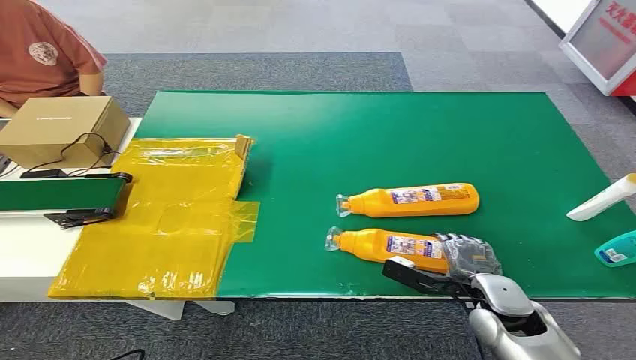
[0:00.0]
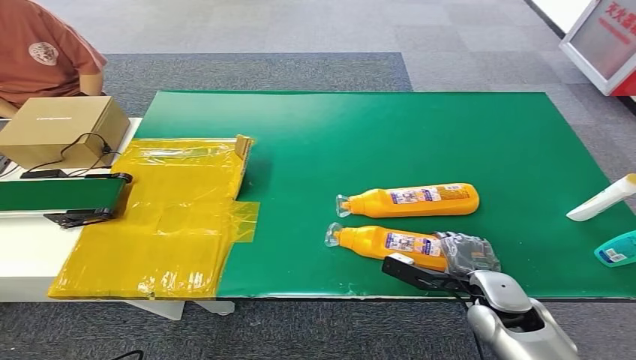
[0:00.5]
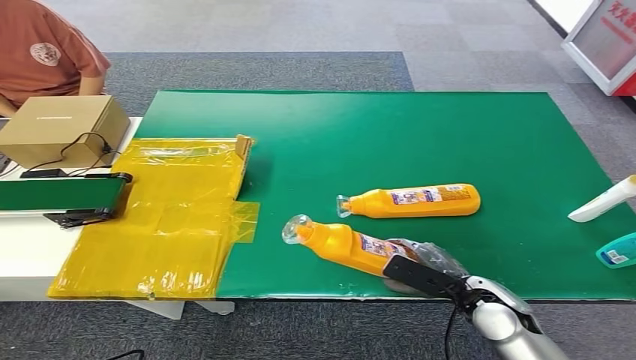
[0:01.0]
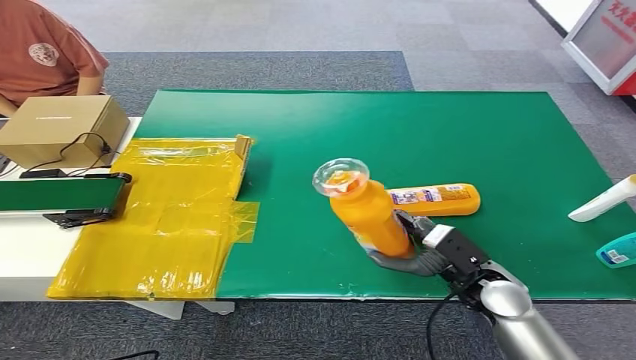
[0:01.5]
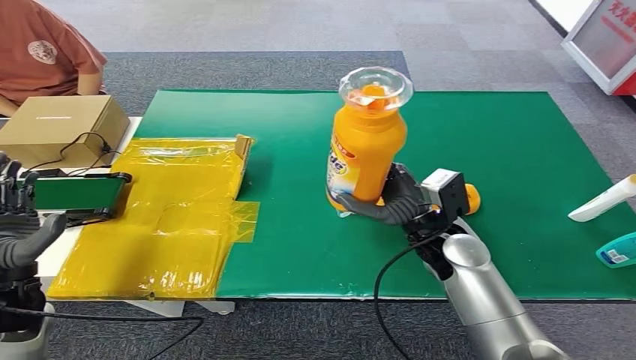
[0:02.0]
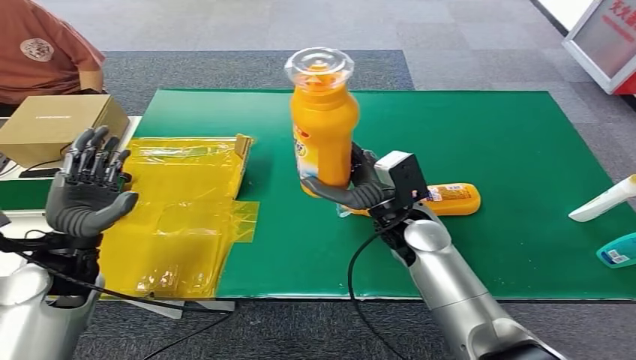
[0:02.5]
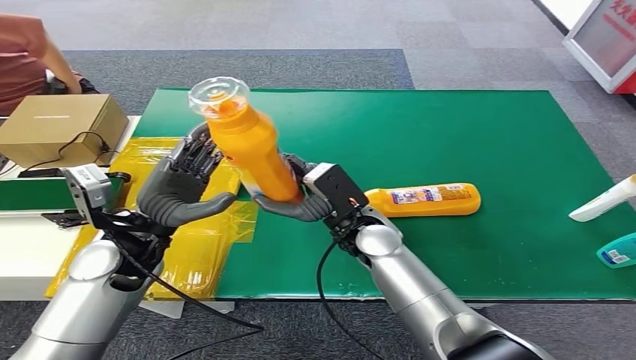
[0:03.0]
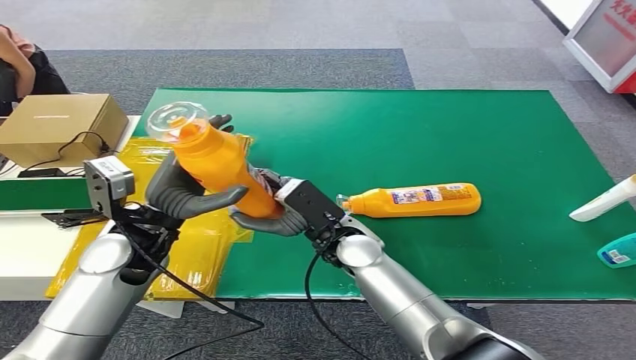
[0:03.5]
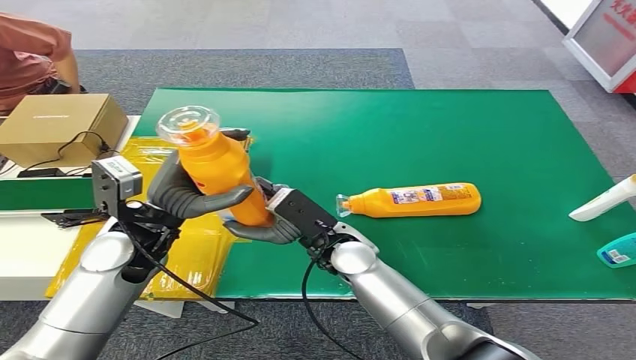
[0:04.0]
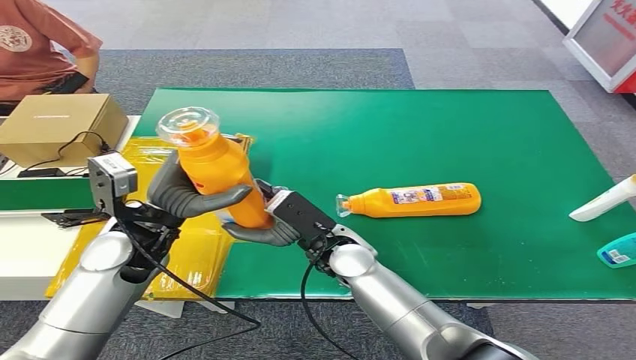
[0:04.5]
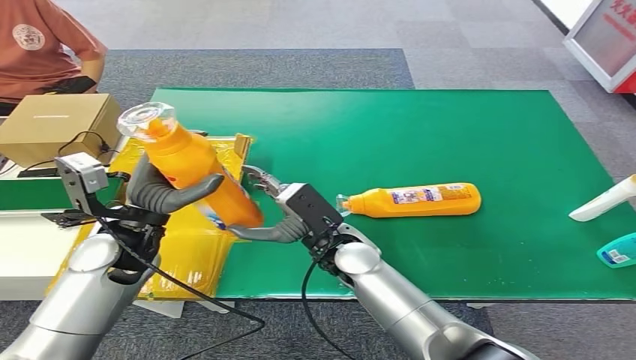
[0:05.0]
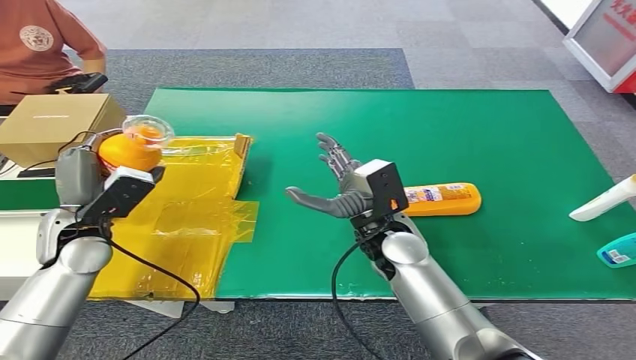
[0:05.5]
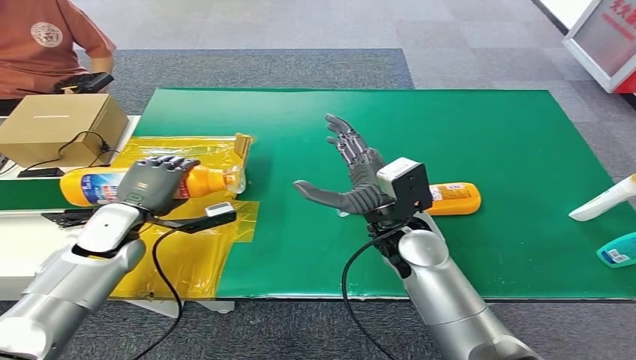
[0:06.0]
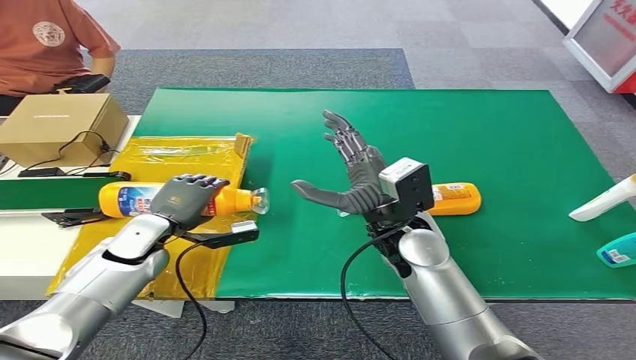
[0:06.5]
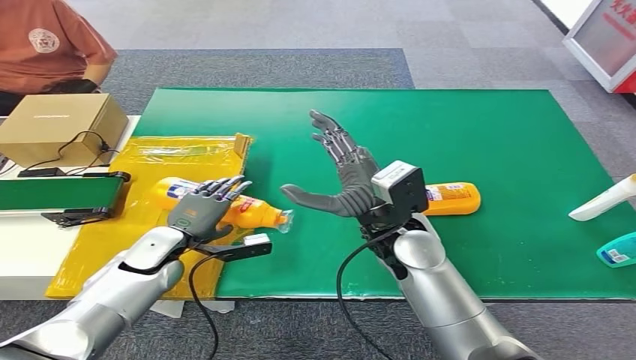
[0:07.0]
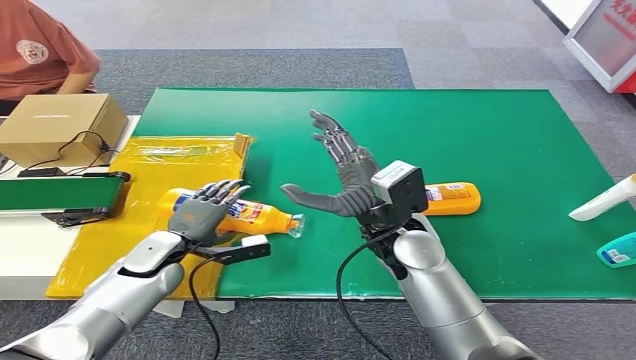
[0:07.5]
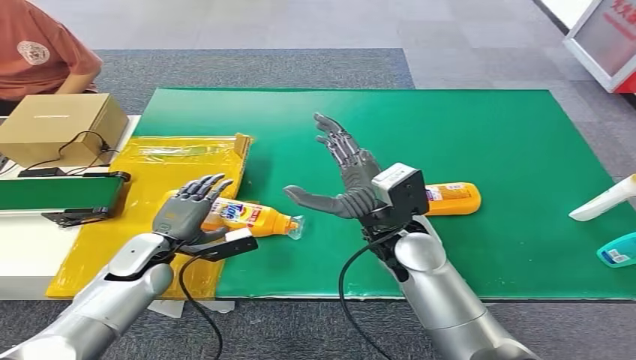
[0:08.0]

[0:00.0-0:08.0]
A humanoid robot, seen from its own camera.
Step, 0:00.0 to 0:01.5: Pick up the bottle from the table.
Step, 0:02.0 to 0:07.5: Turn the bottle to the front side.
0:06.0 to 0:08.0: The left hand shifts roughly 5 cm downward.

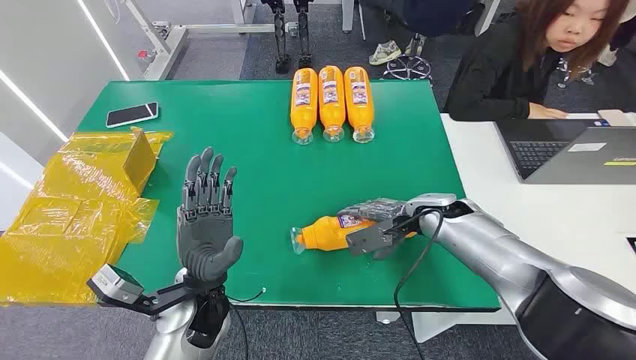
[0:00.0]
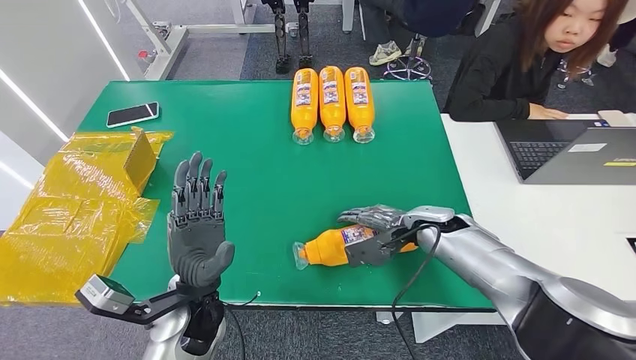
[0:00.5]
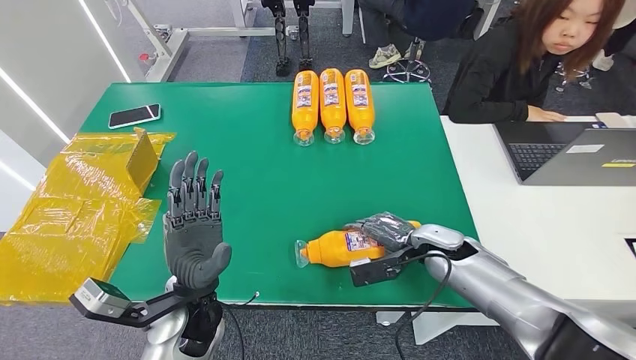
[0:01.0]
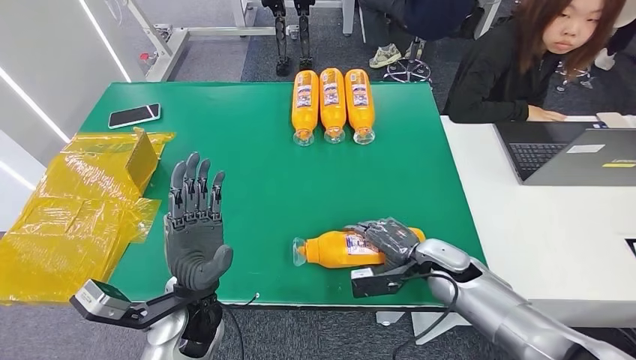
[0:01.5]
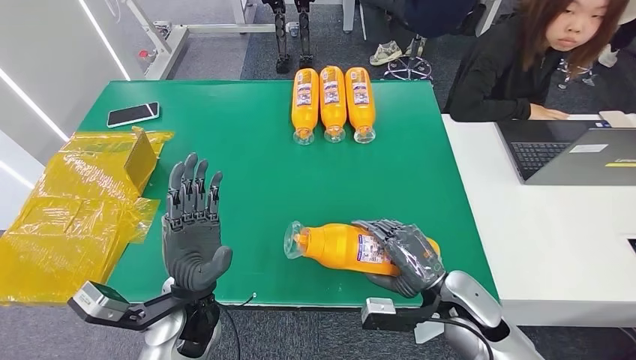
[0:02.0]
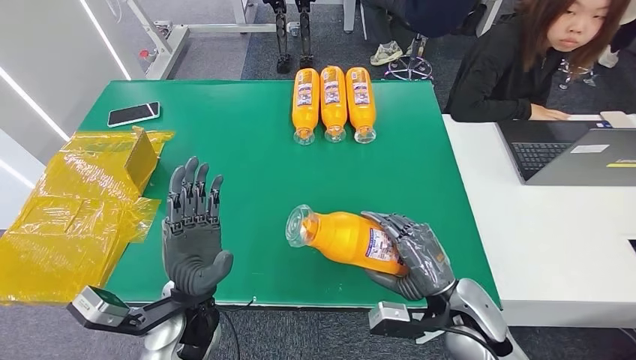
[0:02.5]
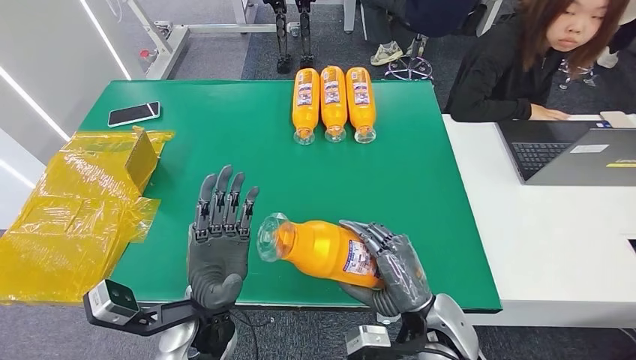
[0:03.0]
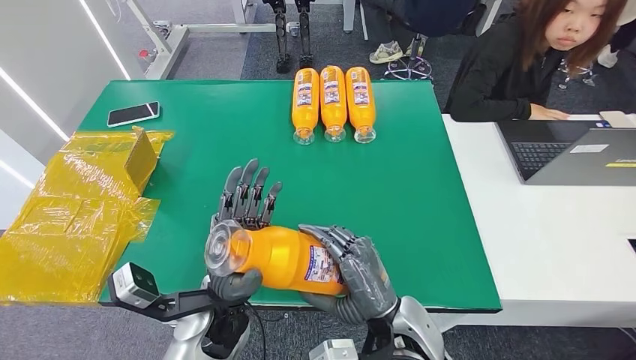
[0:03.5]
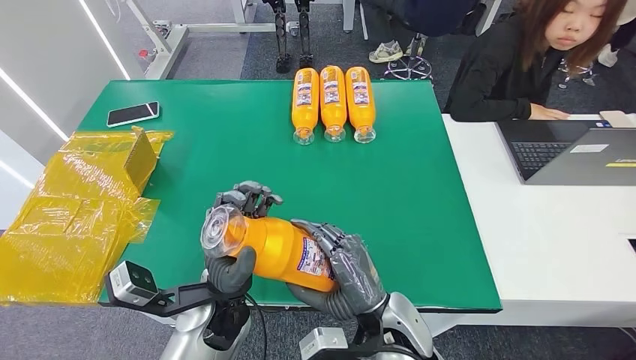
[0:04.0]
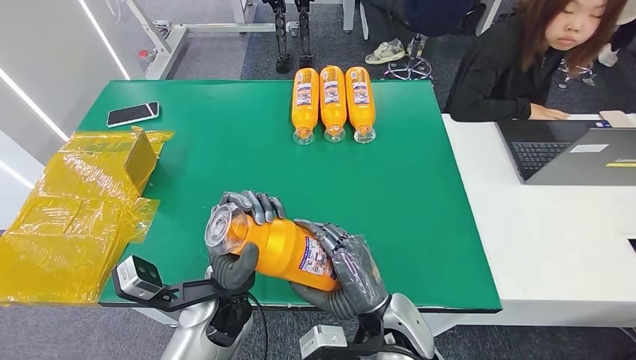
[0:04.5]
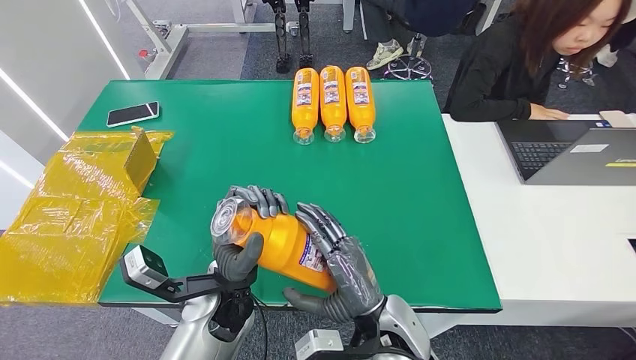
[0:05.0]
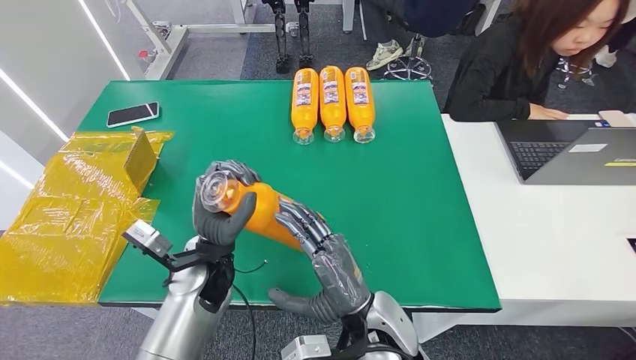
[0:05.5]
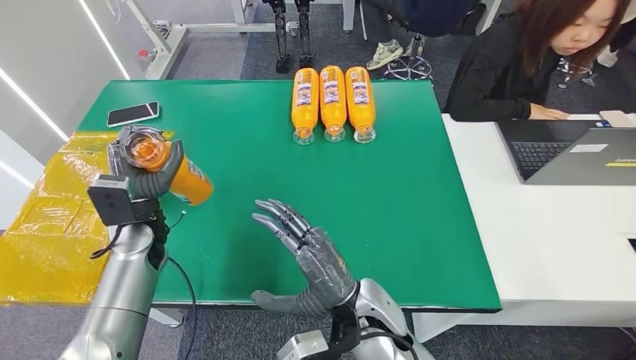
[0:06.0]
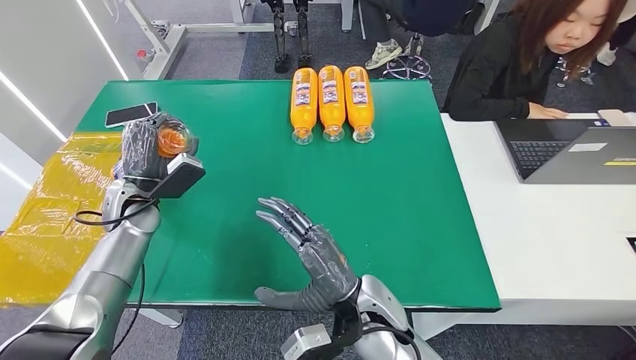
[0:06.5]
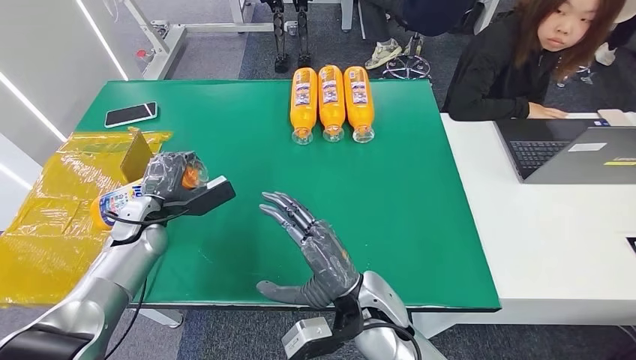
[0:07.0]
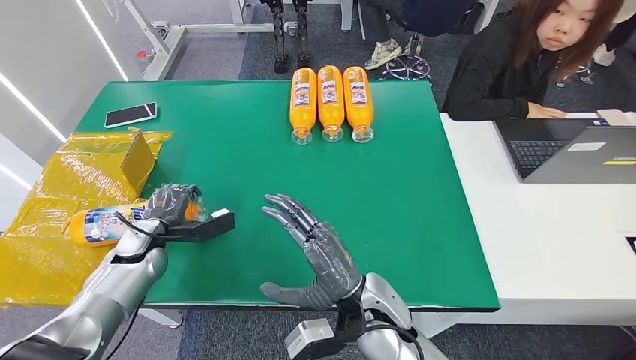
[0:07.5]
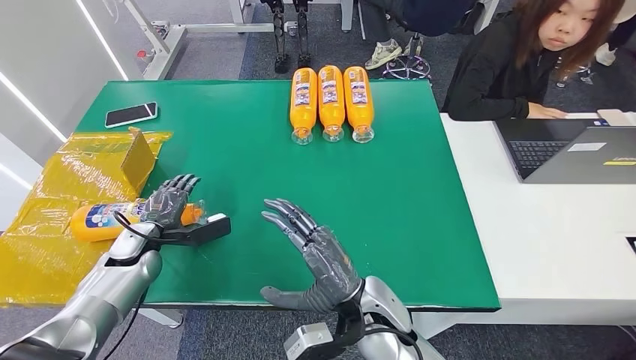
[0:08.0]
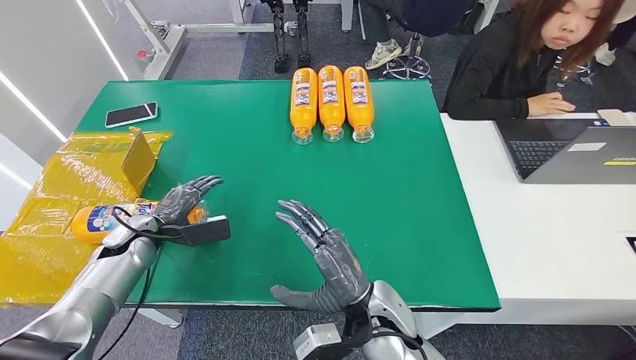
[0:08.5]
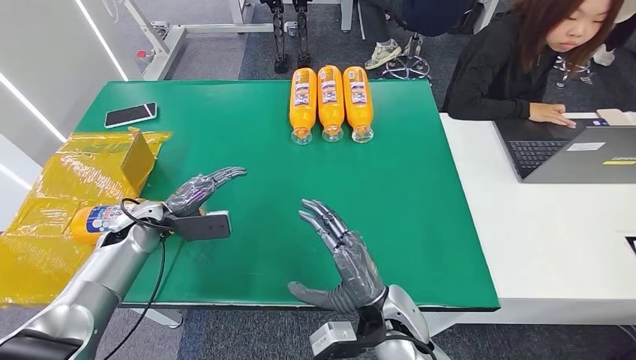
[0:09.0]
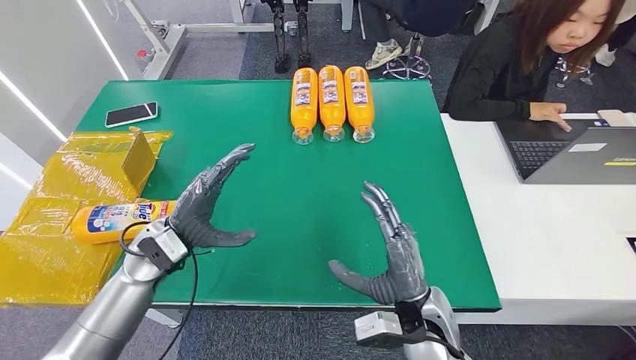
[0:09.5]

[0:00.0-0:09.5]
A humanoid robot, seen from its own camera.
Step, 0:00.0 to 0:03.5: Pick up the bottle from the table.
Step, 0:04.0 to 0:09.5: Turn the bottle to the front side.
0:02.0 to 0:04.0: The right hand is displaced to the left by about 15 cm. The left hand shifts by approximately 5 cm.
0:04.0 to 0:05.5: The left hand shifts about 5 cm forward.
0:05.5 to 0:07.5: The left hand heads to the left, covering approximately 20 cm.
0:07.5 to 0:09.5: The left hand is displaced to the right and upward by approximately 10 cm. The right hand travels to the right by roughly 10 cm.
